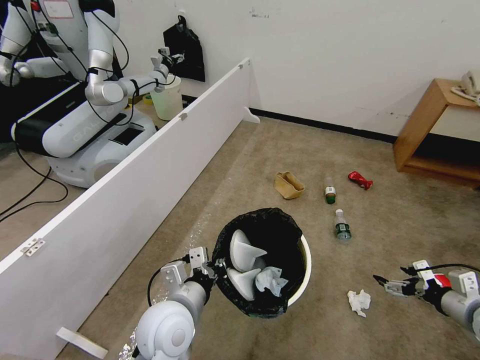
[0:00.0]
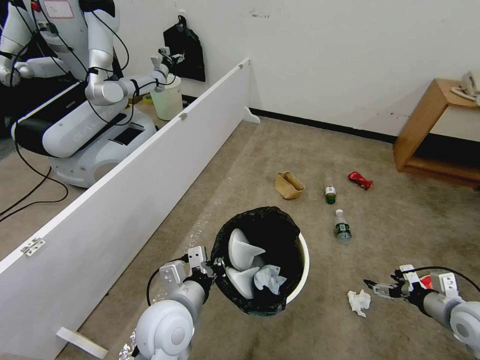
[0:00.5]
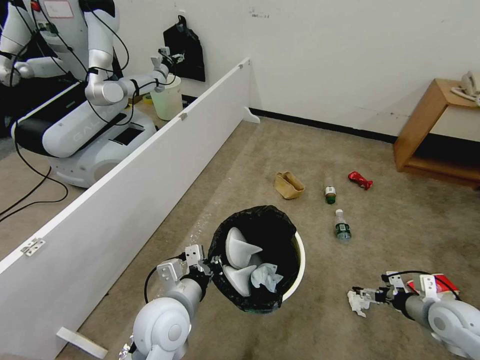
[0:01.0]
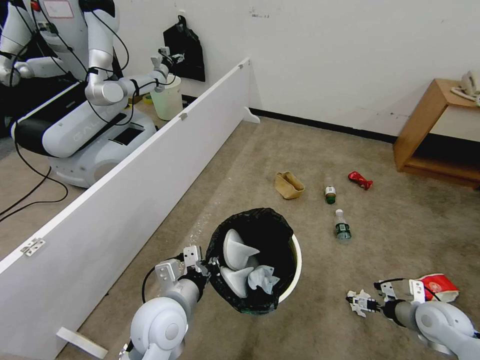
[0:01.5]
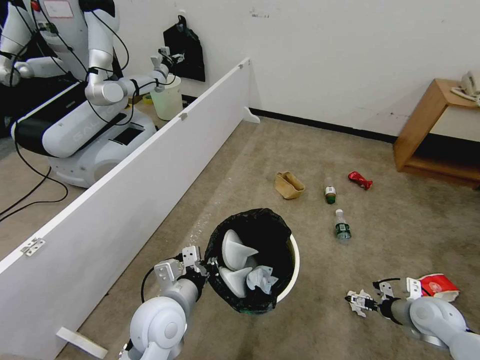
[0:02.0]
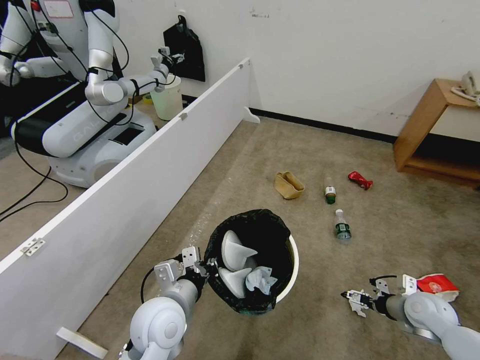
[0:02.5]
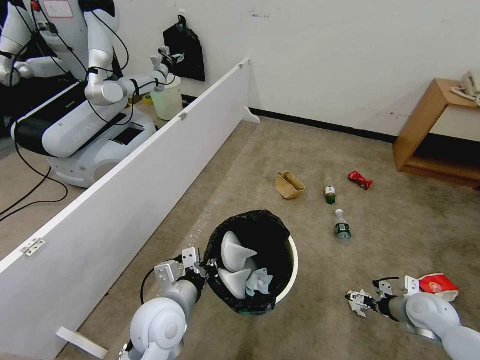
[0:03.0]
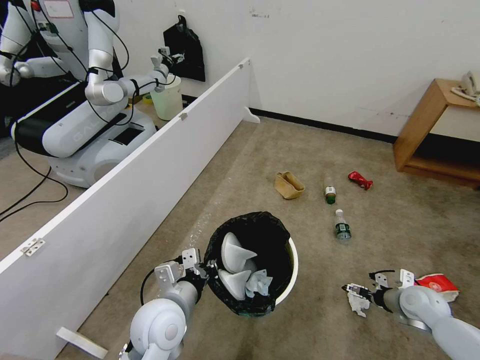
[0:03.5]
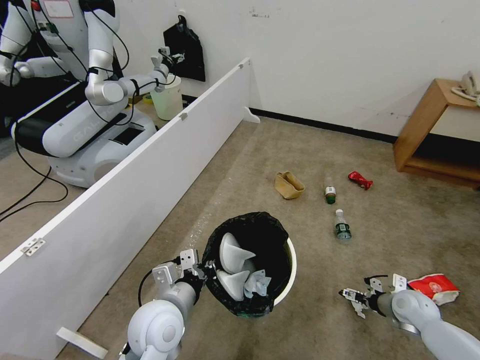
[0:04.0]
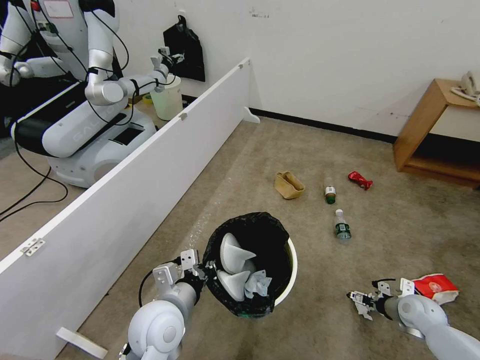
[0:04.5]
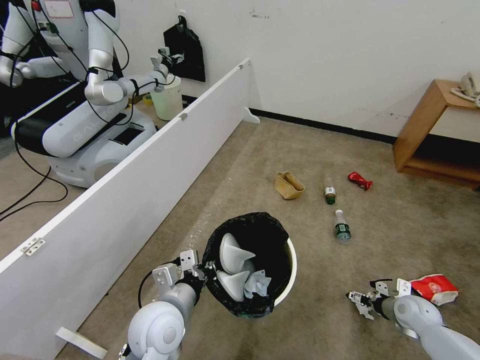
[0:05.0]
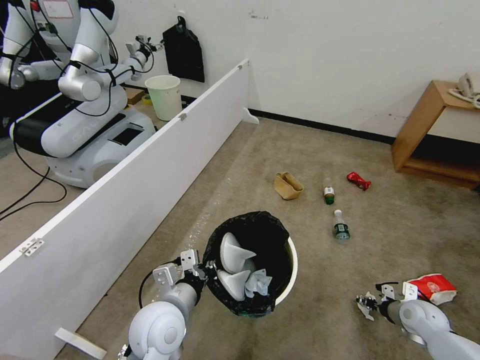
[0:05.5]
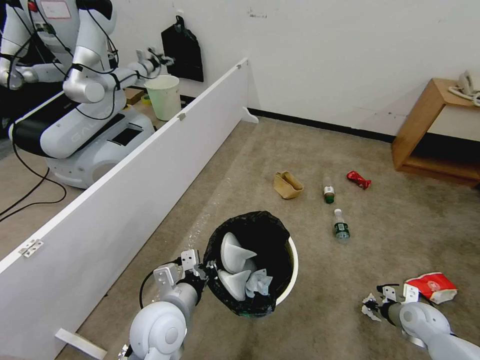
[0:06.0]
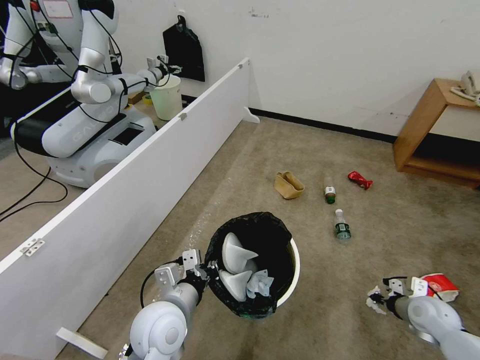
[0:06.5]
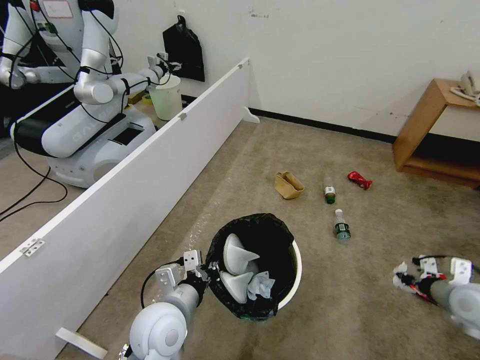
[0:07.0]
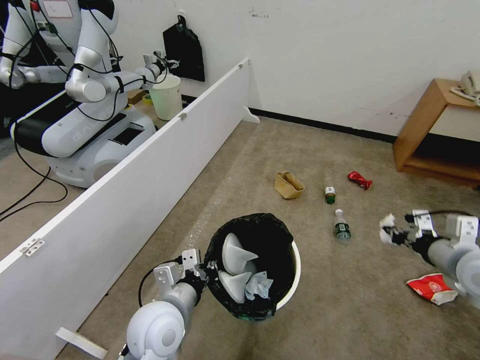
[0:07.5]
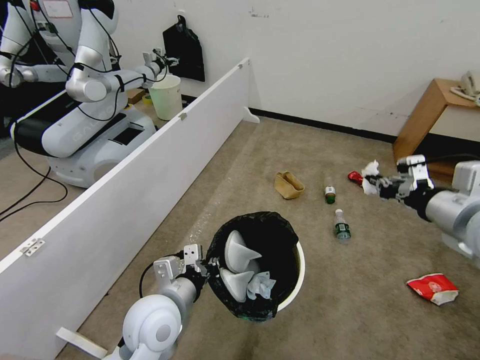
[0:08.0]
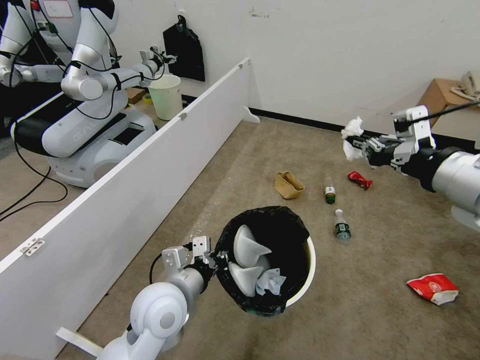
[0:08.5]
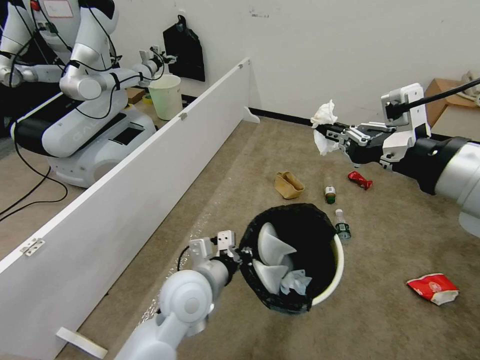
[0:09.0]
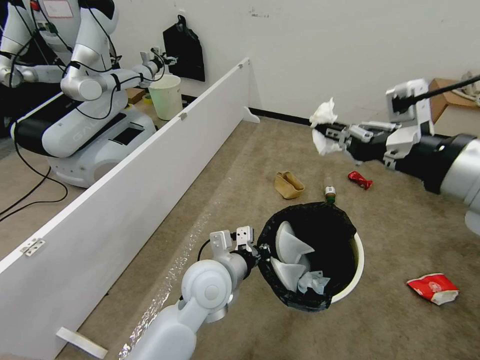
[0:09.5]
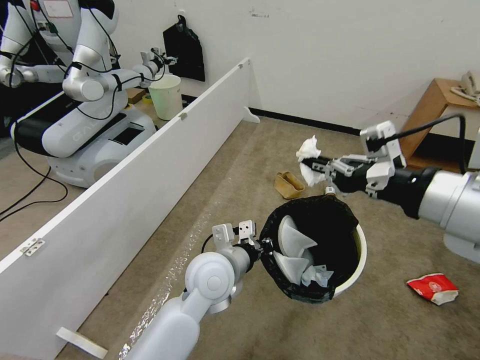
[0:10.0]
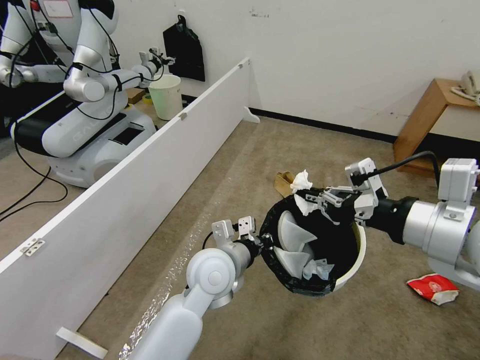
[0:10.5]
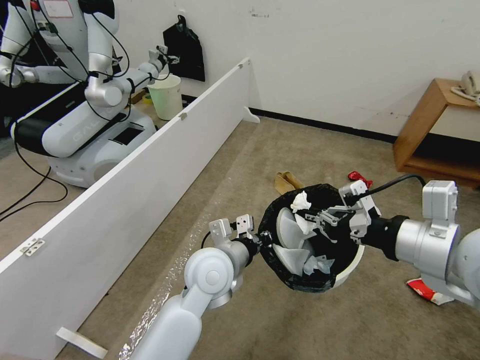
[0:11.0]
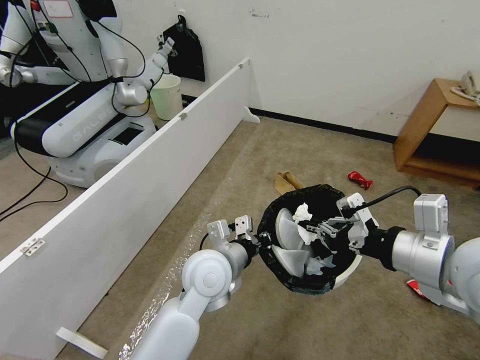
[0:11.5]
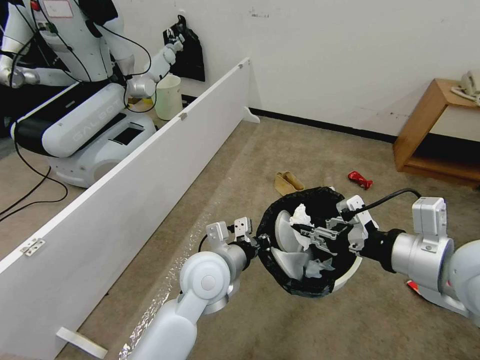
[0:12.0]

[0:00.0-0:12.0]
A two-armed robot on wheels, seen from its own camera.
Task of the whole recording: Pick up the trash bin, then pick up the garbage from the floor and place it into the trash bin.
0:00.0 to 0:02.0: The right gripper heads downward and to the left, covering about 10 cm.
0:02.0 to 0:04.0: The right gripper moves roughly 5 cm.
0:04.0 to 0:06.0: The right gripper closes.
0:06.0 to 0:08.0: The right gripper moves upward, about 40 cm.
0:08.0 to 0:10.0: The right gripper travels upward, to the left and backward by roughly 15 cm, while the left gripper moves to the right and forward, approximately 10 cm.
0:10.0 to 0:12.0: The right gripper heads downward, covering about 10 cm, and opens its fingers.

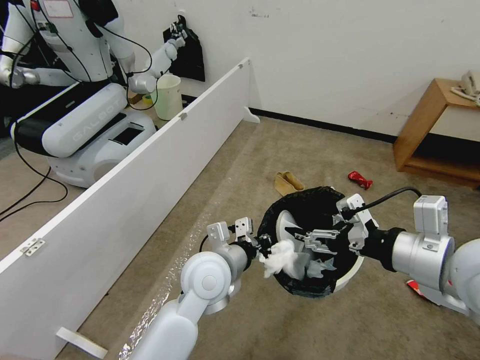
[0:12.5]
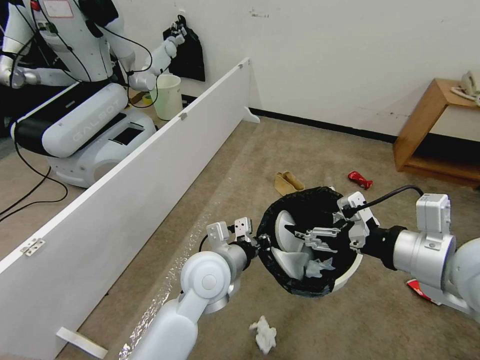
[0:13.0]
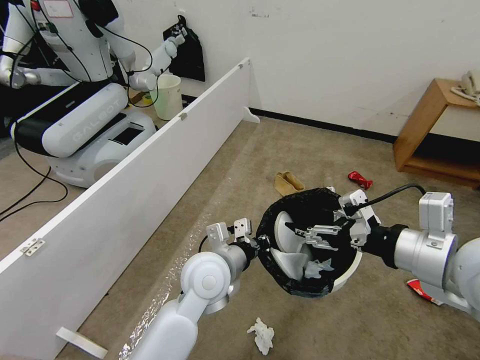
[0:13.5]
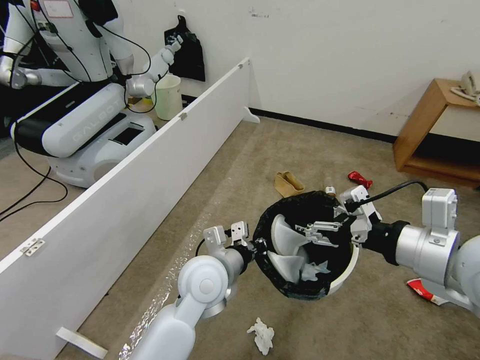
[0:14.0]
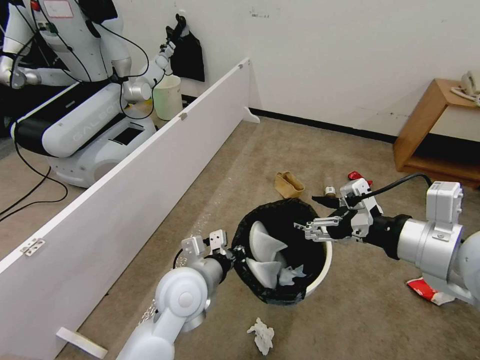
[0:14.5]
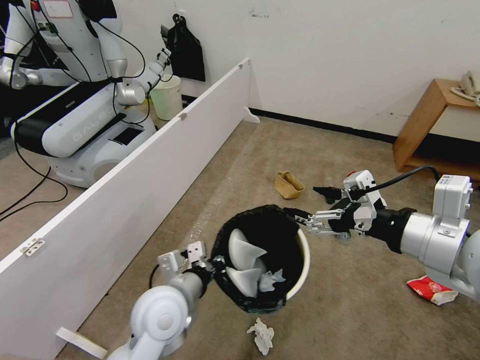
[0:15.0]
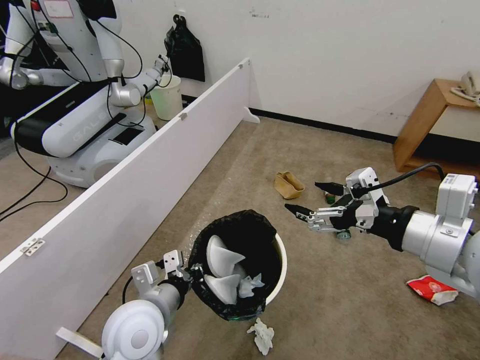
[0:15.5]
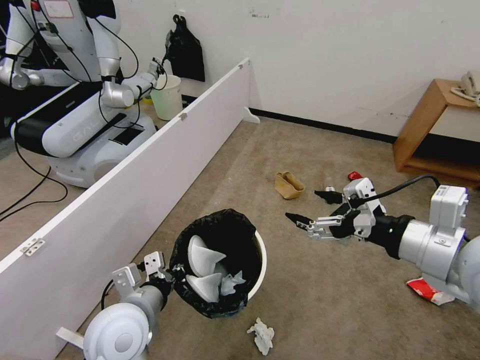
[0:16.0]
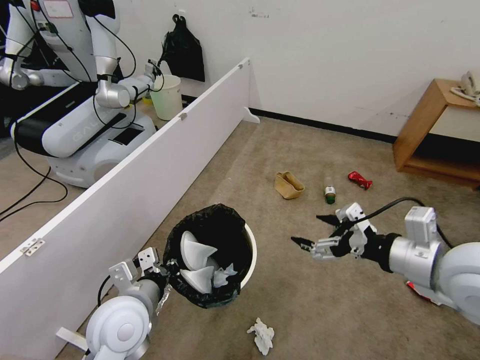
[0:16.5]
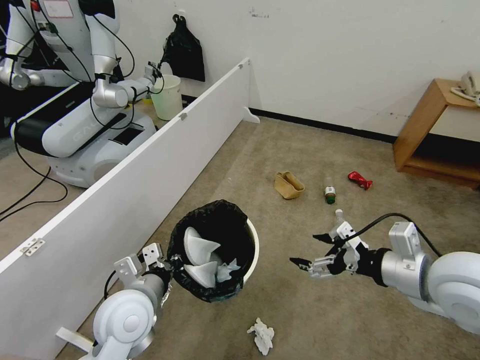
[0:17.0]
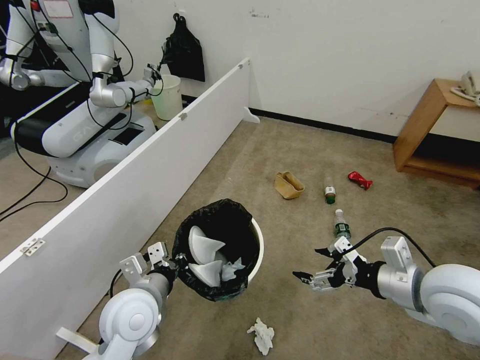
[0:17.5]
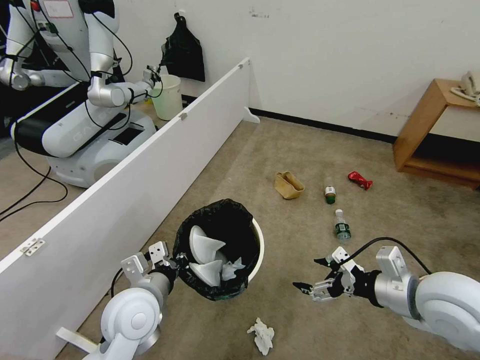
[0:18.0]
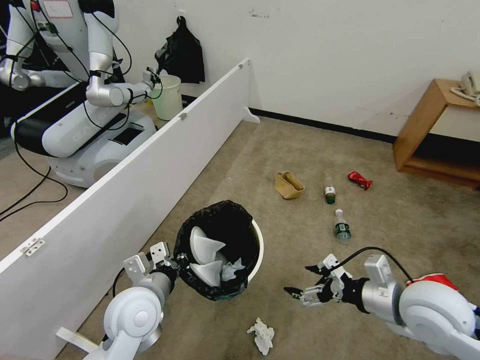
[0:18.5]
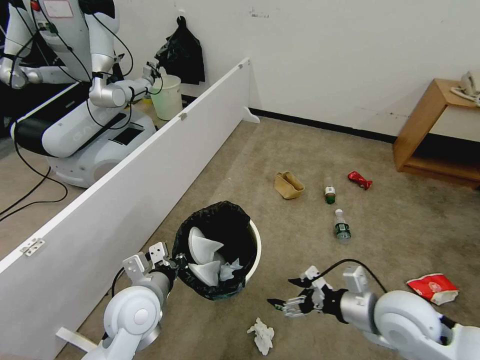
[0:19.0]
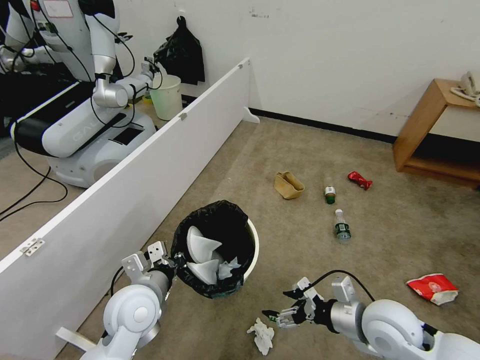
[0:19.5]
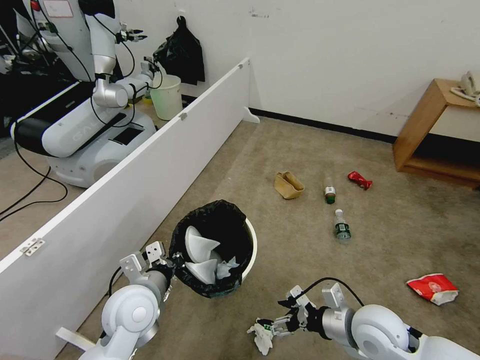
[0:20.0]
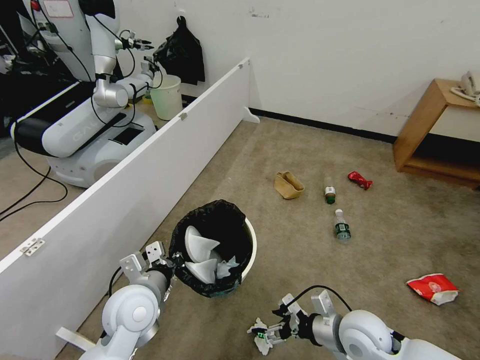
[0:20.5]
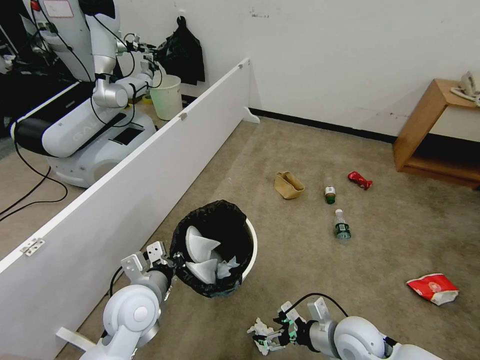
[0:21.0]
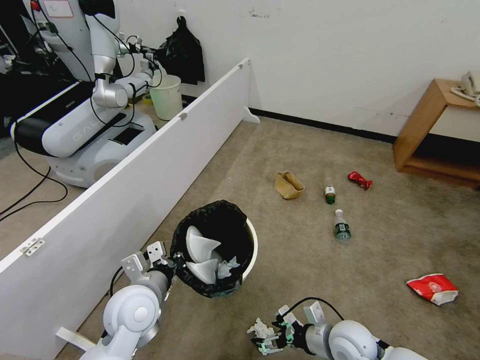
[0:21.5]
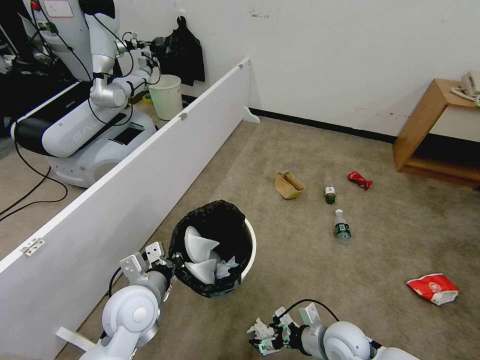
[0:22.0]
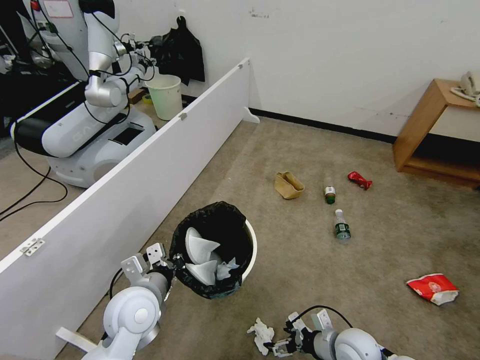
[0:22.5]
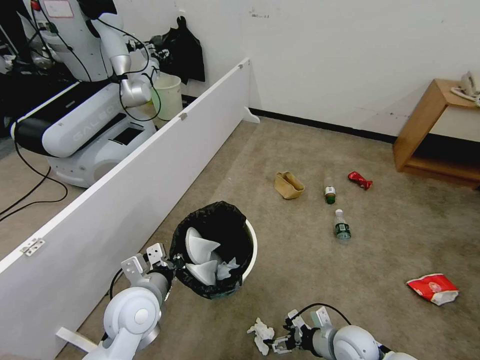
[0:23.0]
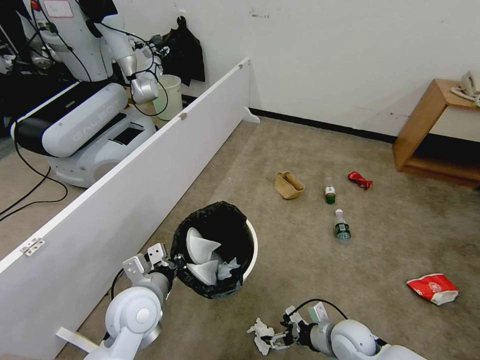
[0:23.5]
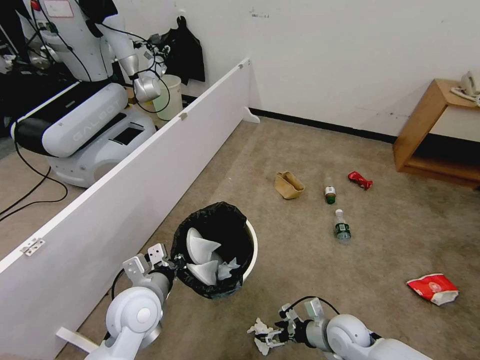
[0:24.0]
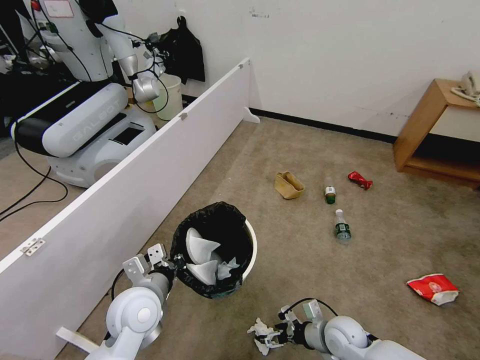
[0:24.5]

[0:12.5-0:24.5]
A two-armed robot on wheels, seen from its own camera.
Task of the whole recording: Pick up the trash bin, then pick up the garbage from the floor and place it into the trash bin.
0:12.5 to 0:14.5: The left gripper ends up roughly 5 cm from where it was.
0:14.5 to 0:16.5: The left gripper goes roughly 10 cm to the left and backward, while the right gripper heads downward, covering some 5 cm.
0:16.5 to 0:18.5: The right gripper is displaced downward by approximately 10 cm.
0:18.5 to 0:20.5: The right gripper heads downward and to the left, covering some 15 cm.
0:20.5 to 0:22.5: The right gripper is displaced downward by about 10 cm.
0:22.5 to 0:24.5: The grippers move only a little.

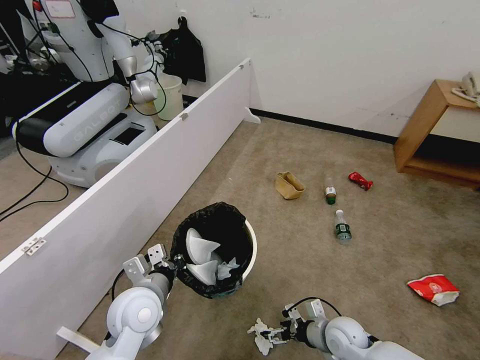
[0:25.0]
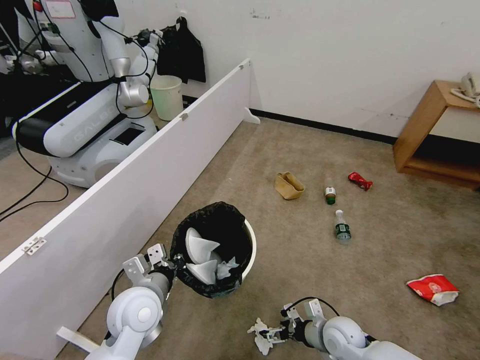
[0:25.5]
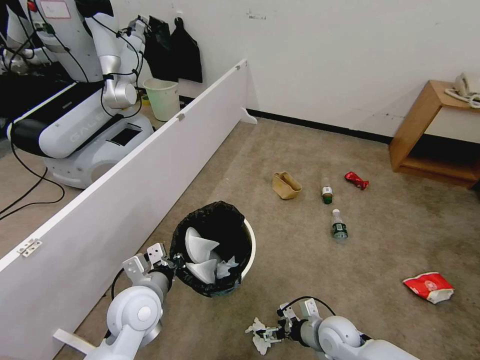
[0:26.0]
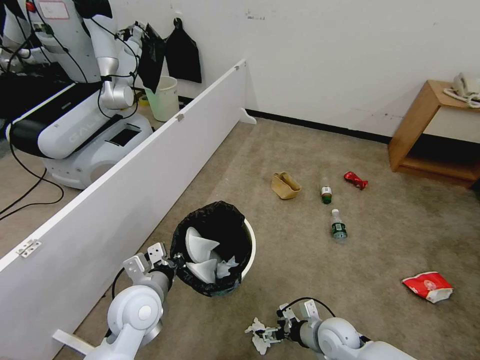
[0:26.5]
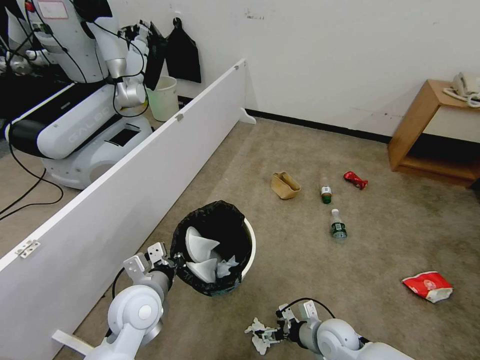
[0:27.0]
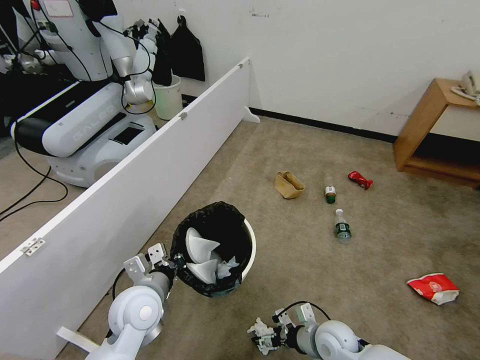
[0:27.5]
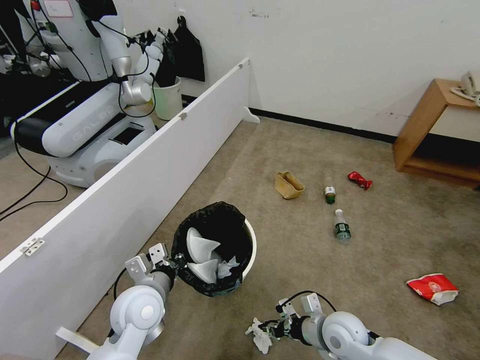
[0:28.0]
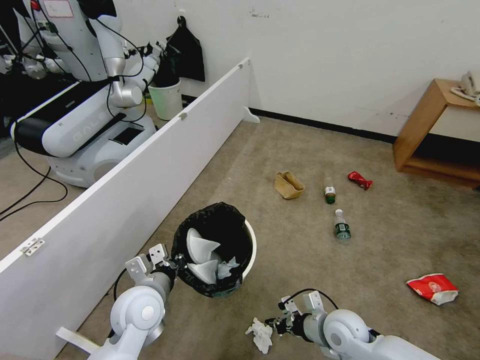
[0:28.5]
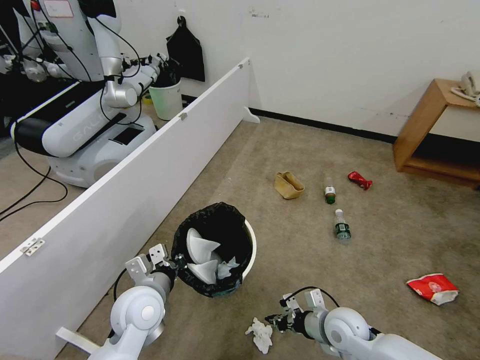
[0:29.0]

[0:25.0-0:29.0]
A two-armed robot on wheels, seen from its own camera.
Task of the whole recording: Pick up the trash bin, then pick up the garbage from the floor and place it into the trash bin.
0:25.0 to 0:27.0: The grippers stay close to where they were, moving slightly.
0:27.0 to 0:29.0: The right gripper travels upward by about 5 cm, and closes its fingers.
